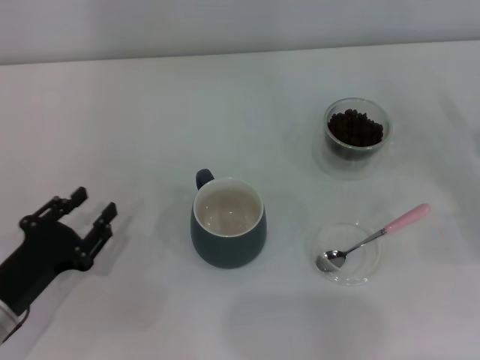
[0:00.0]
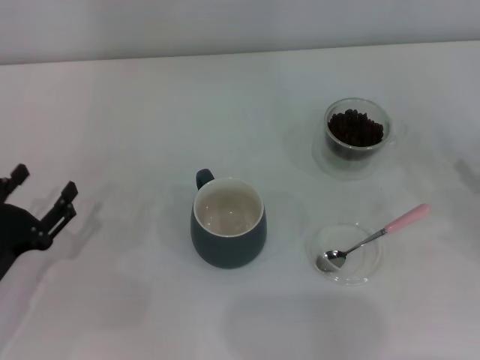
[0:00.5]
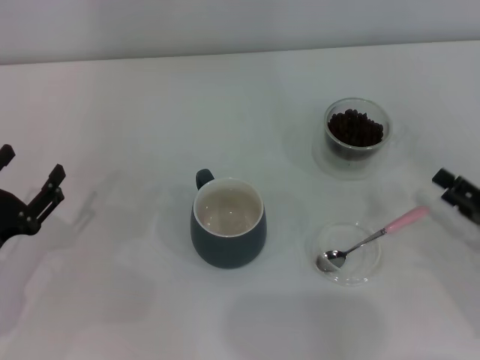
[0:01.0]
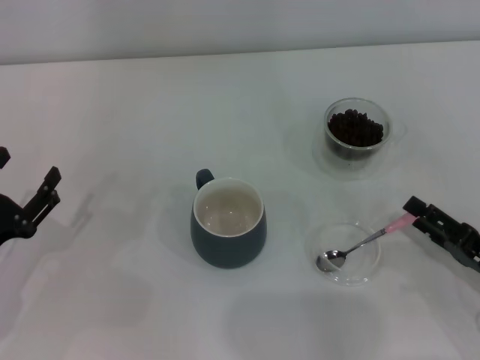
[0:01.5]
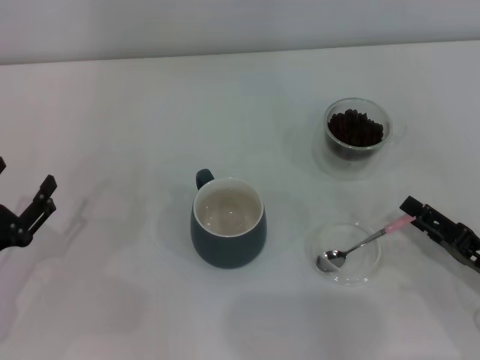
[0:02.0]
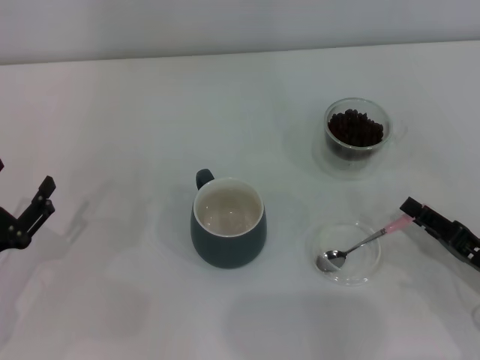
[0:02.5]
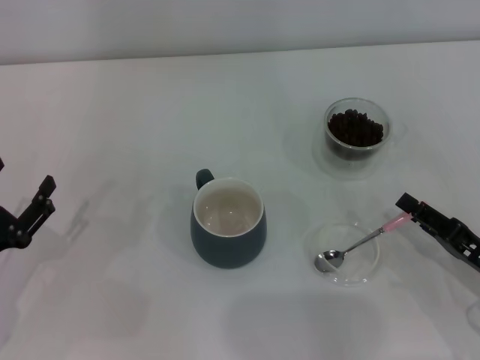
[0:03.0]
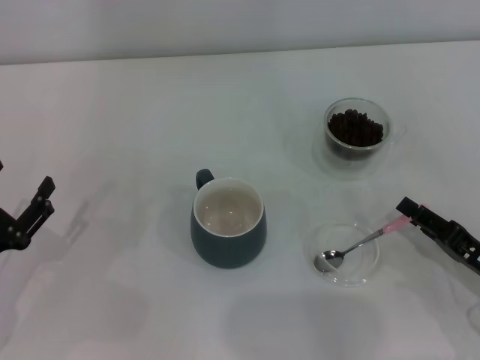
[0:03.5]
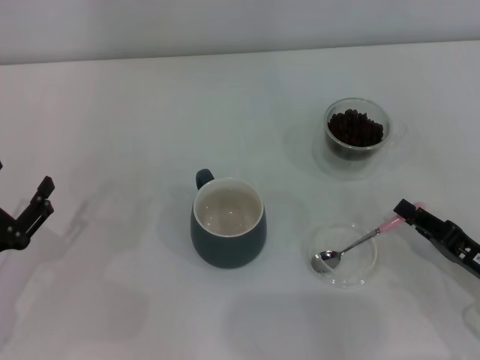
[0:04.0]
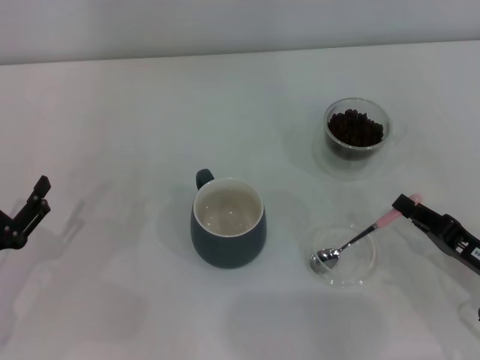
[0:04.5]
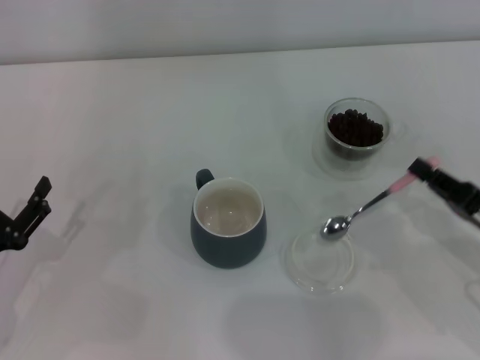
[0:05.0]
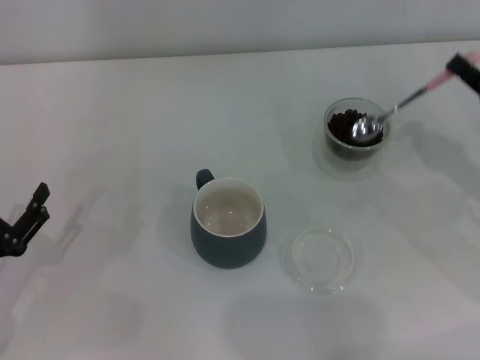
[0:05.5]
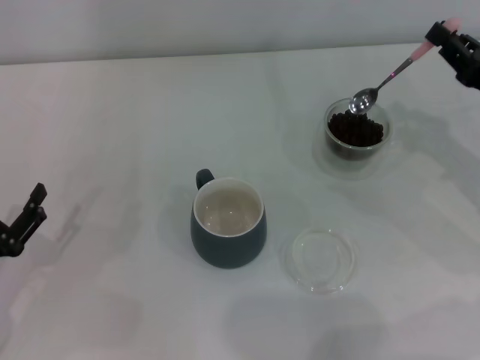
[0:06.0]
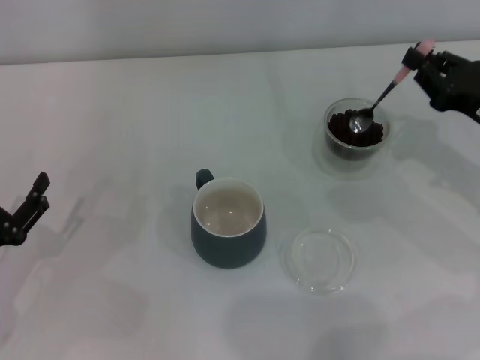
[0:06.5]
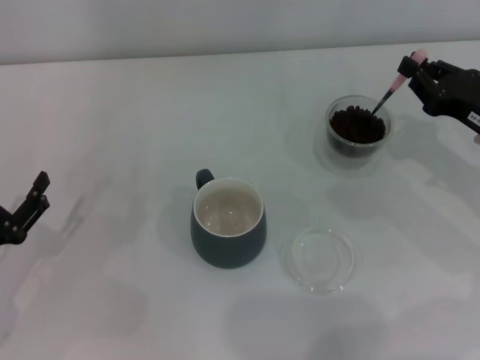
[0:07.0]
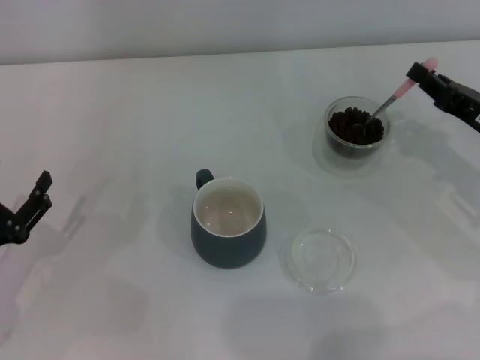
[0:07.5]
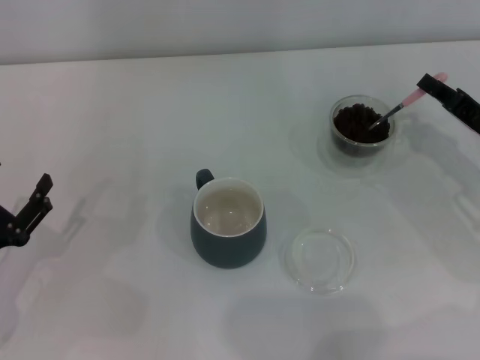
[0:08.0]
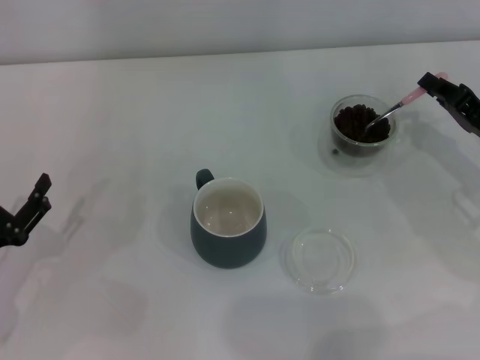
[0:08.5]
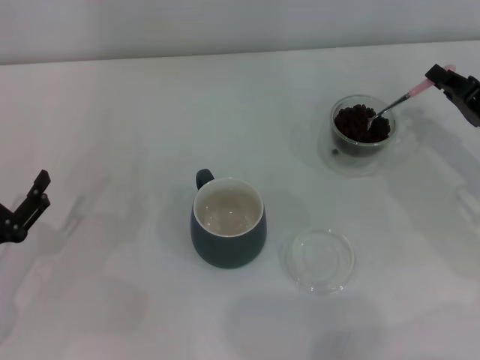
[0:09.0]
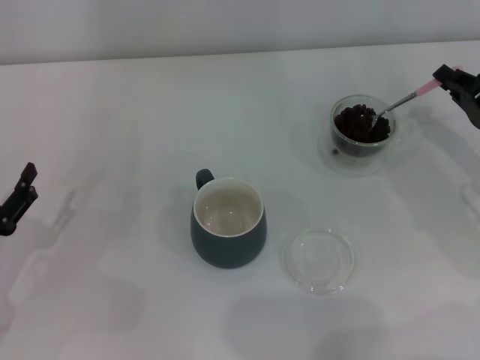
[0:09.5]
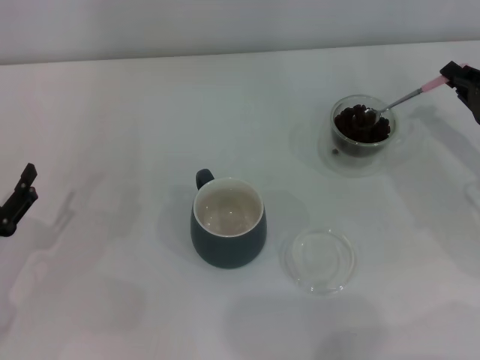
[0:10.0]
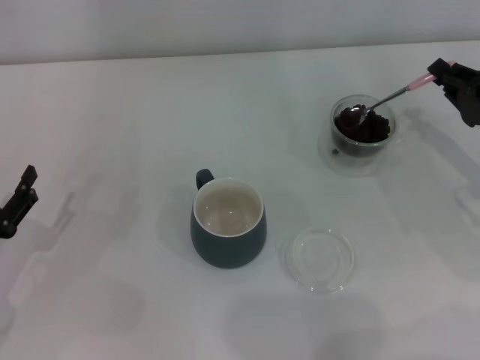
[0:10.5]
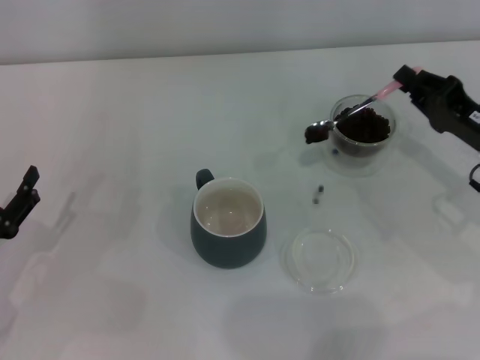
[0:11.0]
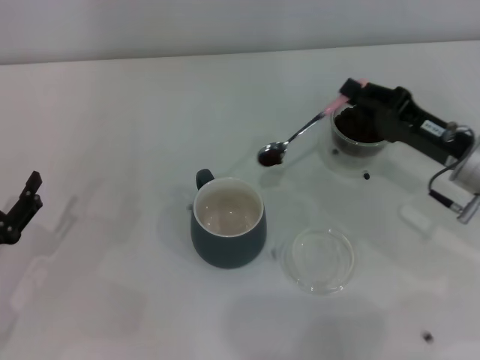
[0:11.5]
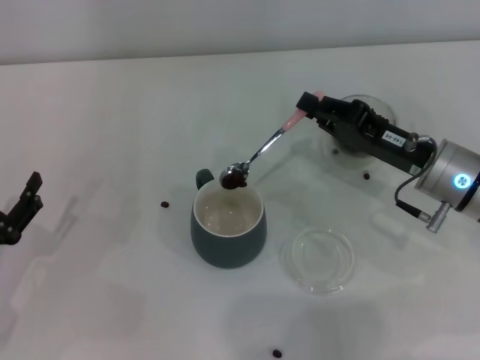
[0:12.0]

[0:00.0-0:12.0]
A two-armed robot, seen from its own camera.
Task of the whole recording: Use a pink spoon to take out the coffee beans from the glass and pour them into the gray cup.
Step, 0:00.0 to 0:05.0: Pick up the spoon with the right gripper.
0:00.0 to 0:02.0: The right gripper goes about 10 cm to the left and backward, while the left gripper opens up.
0:02.0 to 0:04.0: The right gripper closes up.
0:04.0 to 0:06.0: The right gripper moves forward and upward, about 15 cm.
0:08.0 to 0:10.0: There are only small adjustments of the grippers.
0:10.0 to 0:12.0: The right gripper goes roughly 10 cm to the left.

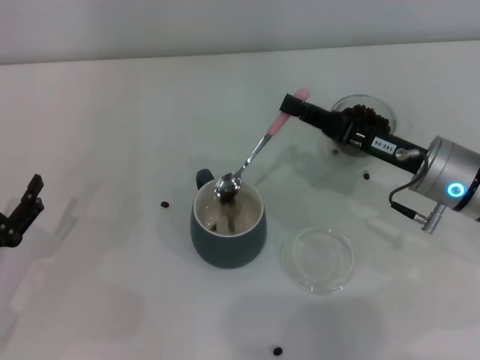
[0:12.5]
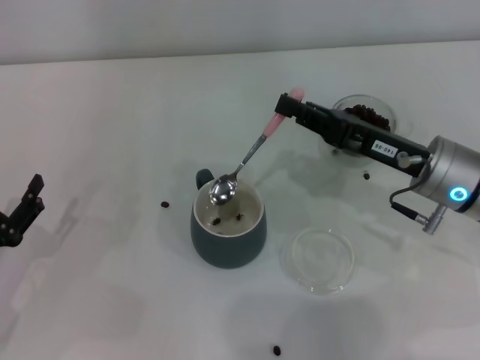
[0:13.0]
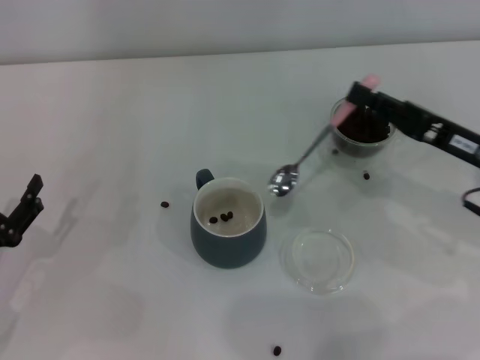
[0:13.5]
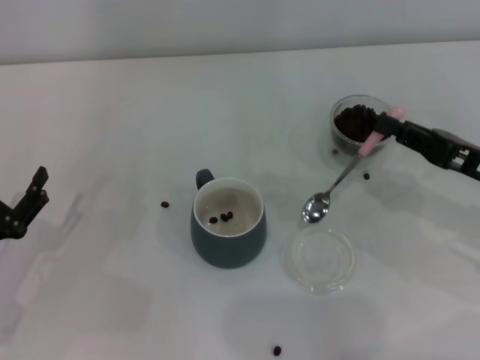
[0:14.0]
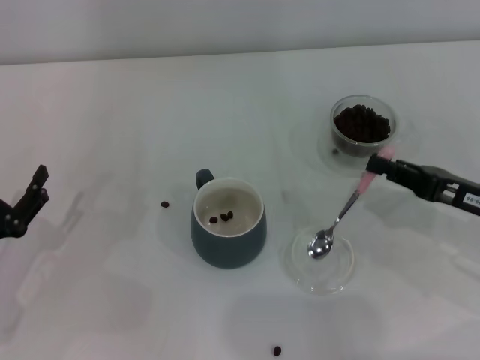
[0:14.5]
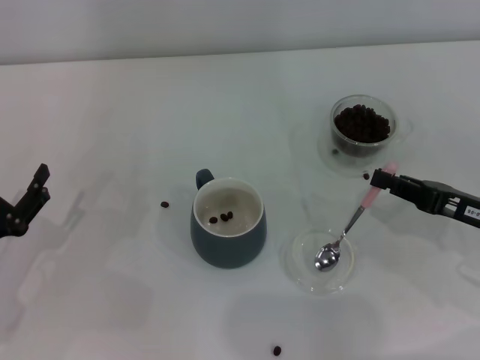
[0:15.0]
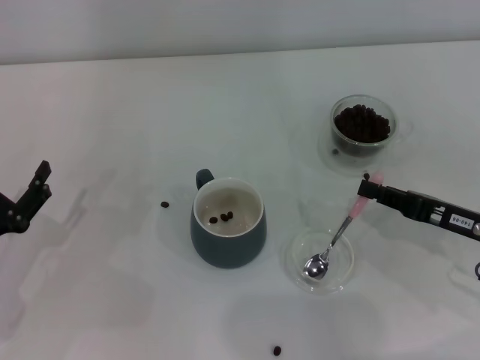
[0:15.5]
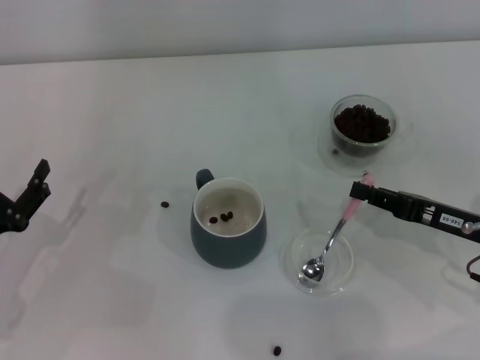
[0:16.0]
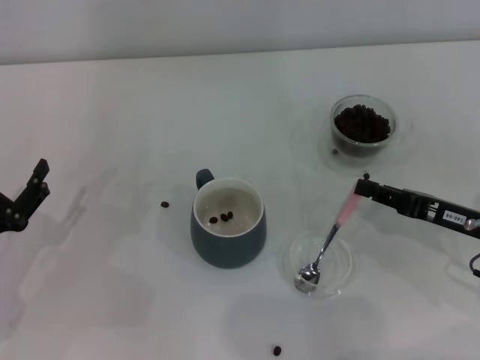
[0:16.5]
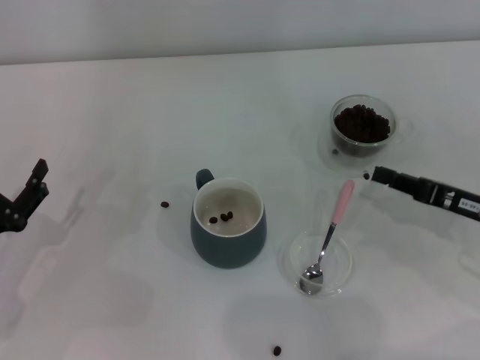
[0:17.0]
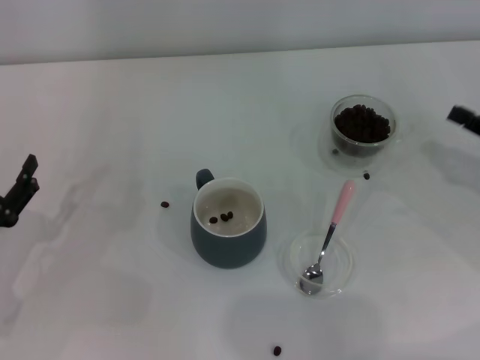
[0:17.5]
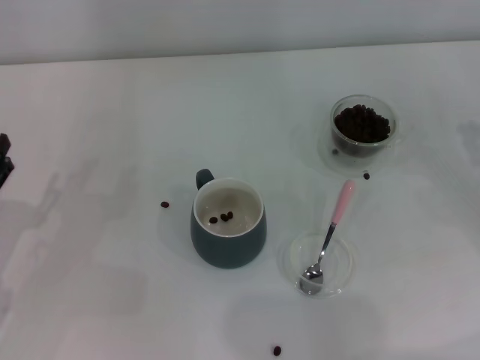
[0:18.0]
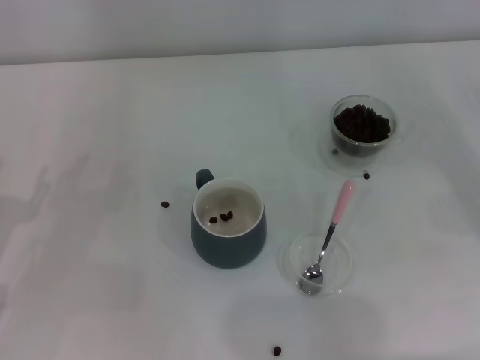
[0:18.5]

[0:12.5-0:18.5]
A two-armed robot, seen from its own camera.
Task of the whole recording: Use a pink spoon to take out the coffee beans from the glass and pour them into the gray cup.
Step, 0:13.0 to 0:16.5: Place the spoon back in its original place with the right gripper.
0:12.5 to 0:14.5: The right gripper travels to the right and backward by some 10 cm.
0:14.5 to 0:16.5: There are only small adjustments of the grippers.
0:16.5 to 0:18.5: The right gripper is displaced to the right by roughly 10 cm.
